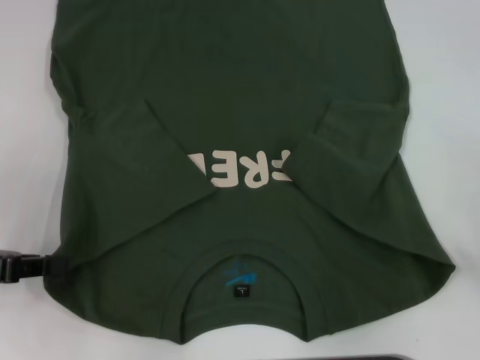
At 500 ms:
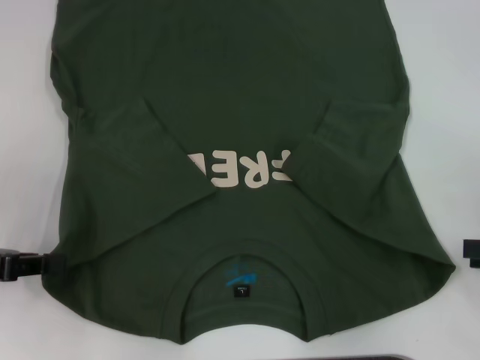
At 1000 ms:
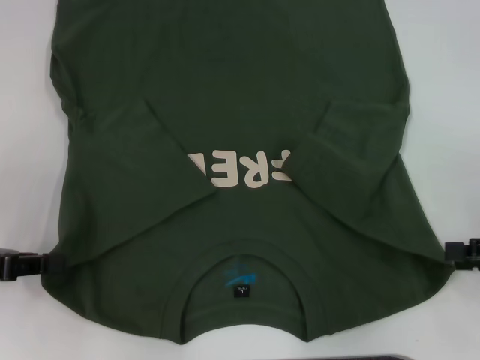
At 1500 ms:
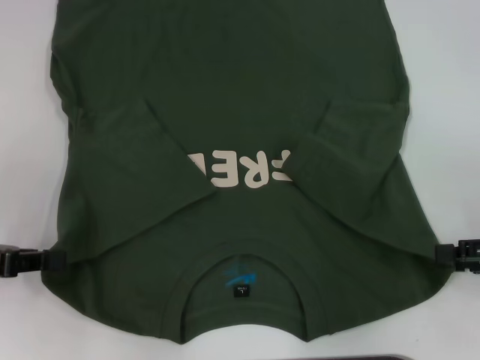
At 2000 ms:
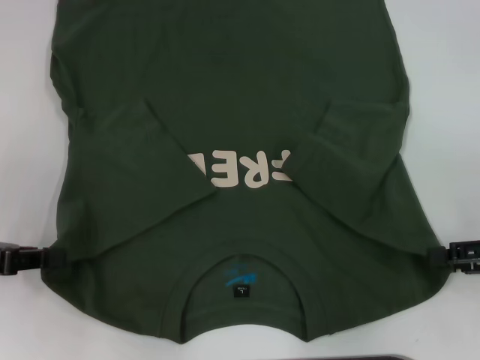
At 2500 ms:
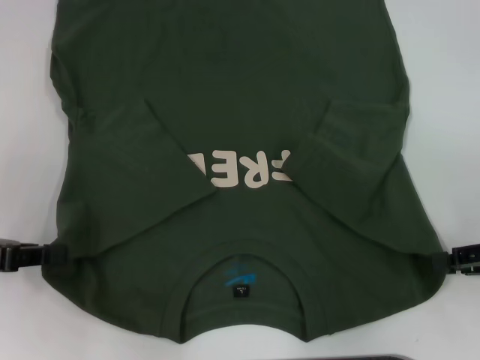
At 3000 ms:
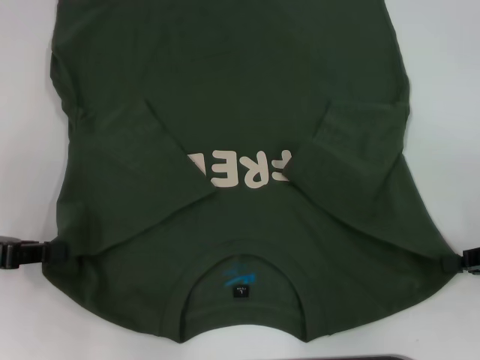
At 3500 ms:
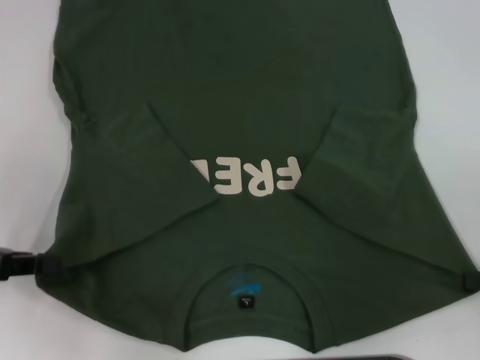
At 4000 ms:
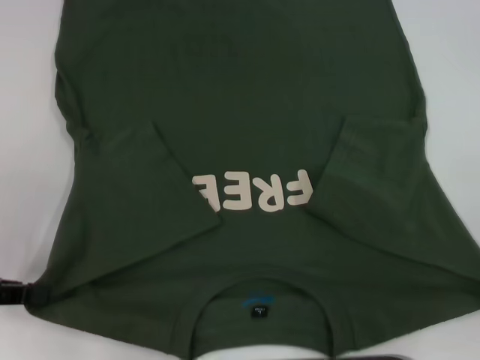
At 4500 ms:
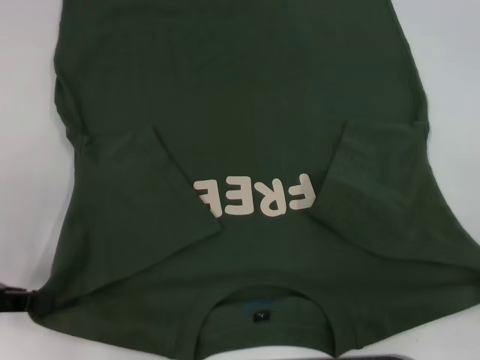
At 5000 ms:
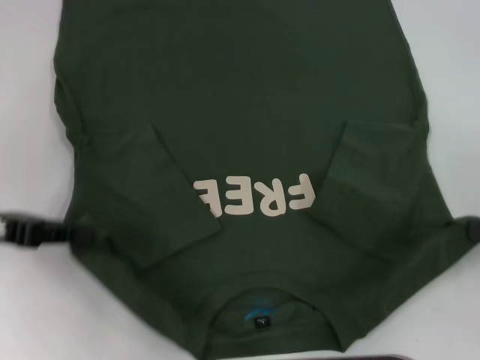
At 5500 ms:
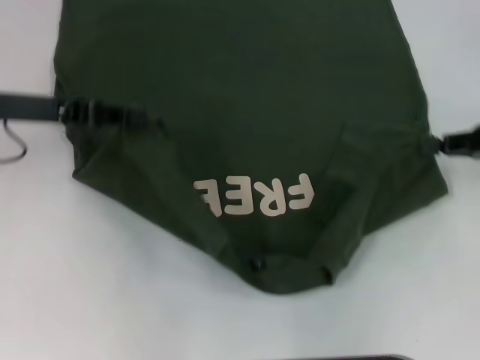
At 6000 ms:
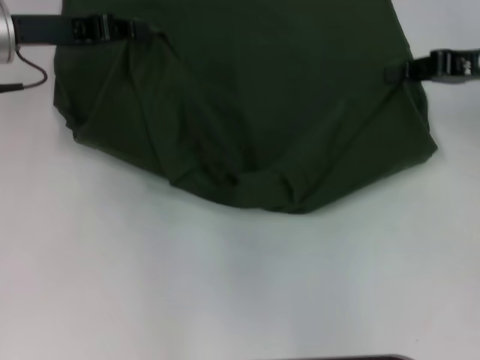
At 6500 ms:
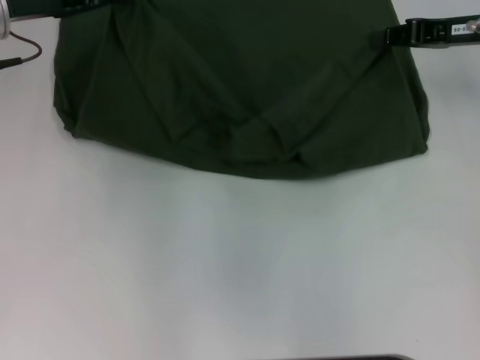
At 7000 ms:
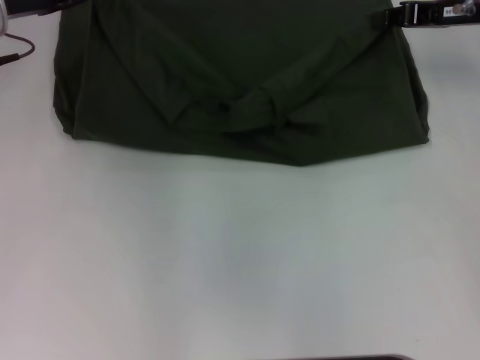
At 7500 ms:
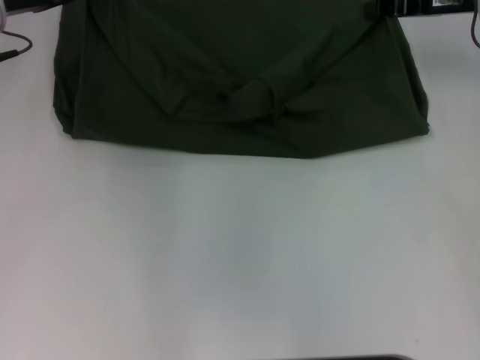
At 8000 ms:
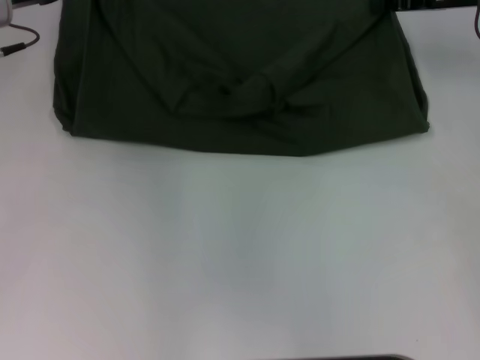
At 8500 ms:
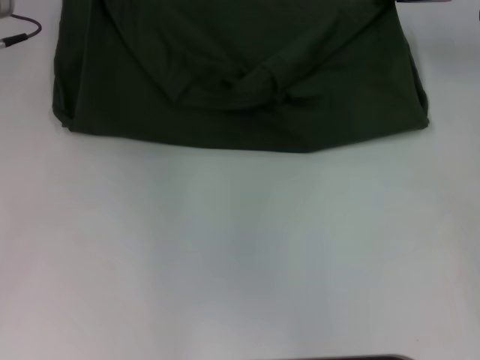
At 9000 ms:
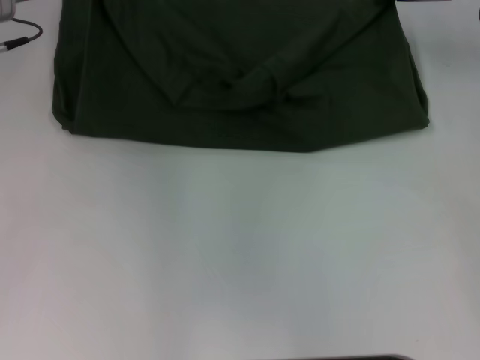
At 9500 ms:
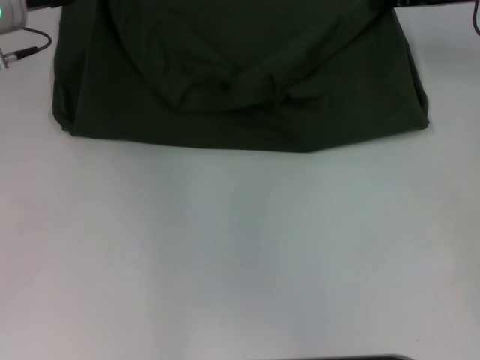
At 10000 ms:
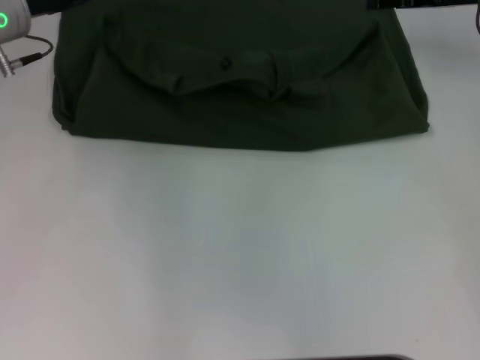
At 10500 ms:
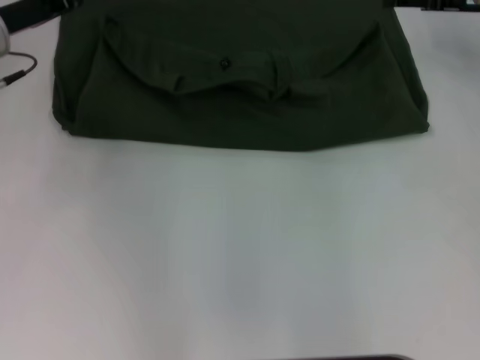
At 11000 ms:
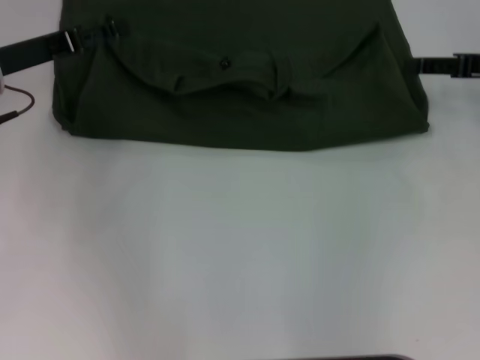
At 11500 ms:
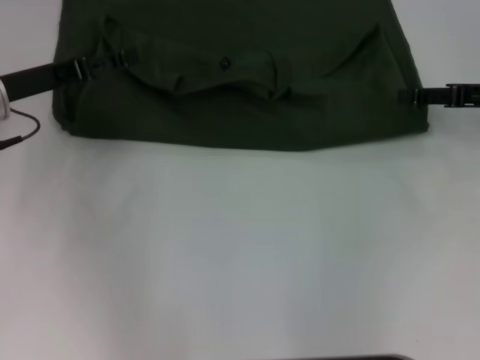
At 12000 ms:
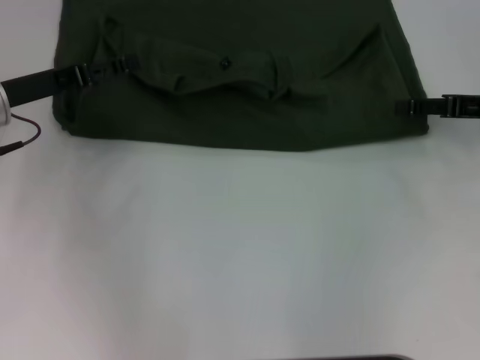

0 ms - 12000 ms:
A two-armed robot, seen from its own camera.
Step, 0 ms - 3000 ms: Grab the bottom right corner with your right hand.
Step, 3500 ms - 11000 ms: Fold the clothes with your left hand.
Step, 3500 ms - 11000 ms: Fold the clothes with your right hand.
0 ms - 2000 ms: The right gripper goes about 5 cm to the left.
2000 ms - 4000 ms: The right gripper moves backward, approximately 5 cm, and closes.
4000 ms - 6000 ms: The left gripper heads forward and to the right, covering approximately 20 cm. The right gripper moves forward and to the left, roughly 25 cm.
6000 ms - 8000 ms: The right gripper is displaced forward by roughly 5 cm.
8000 ms - 10000 ms: The grippers make only small movements.
10000 ms - 12000 ms: The left gripper goes roughly 5 cm backward, and opens its fingers; the right gripper travels backward, downward and to the right by roughly 15 cm, and opens up.

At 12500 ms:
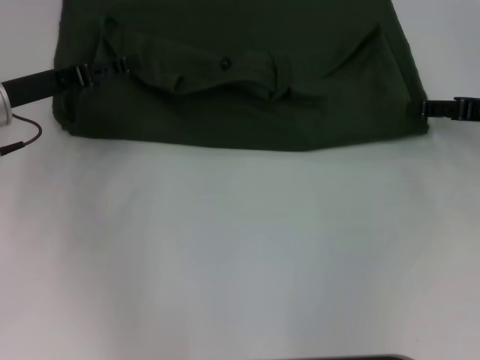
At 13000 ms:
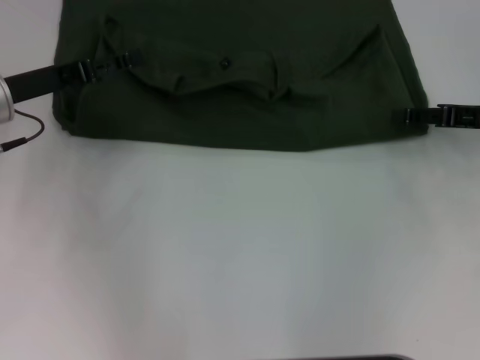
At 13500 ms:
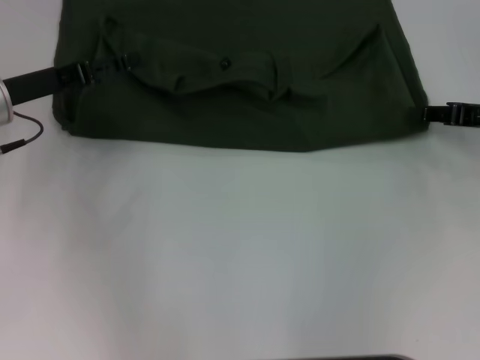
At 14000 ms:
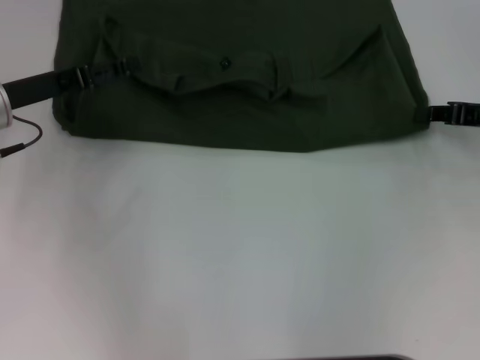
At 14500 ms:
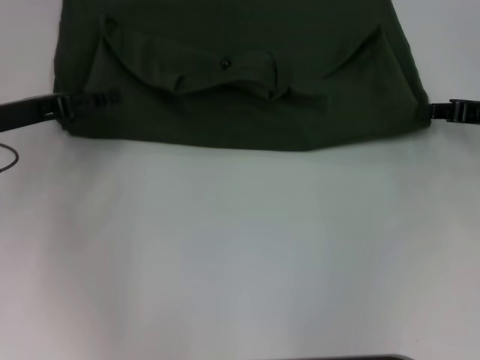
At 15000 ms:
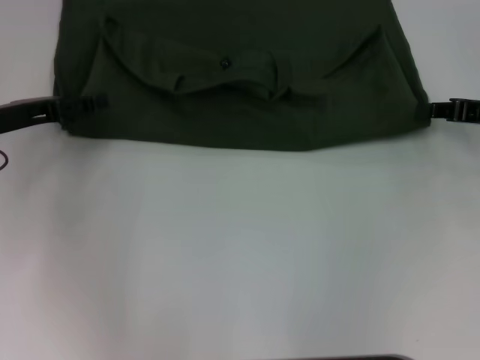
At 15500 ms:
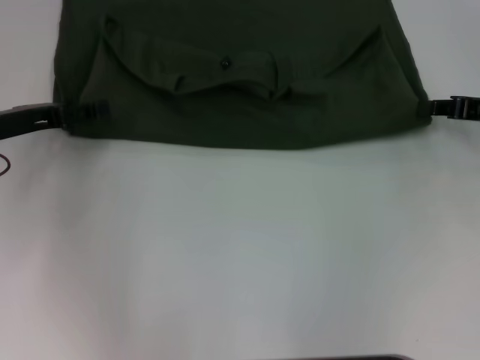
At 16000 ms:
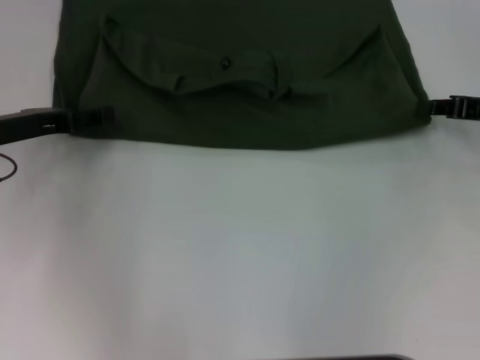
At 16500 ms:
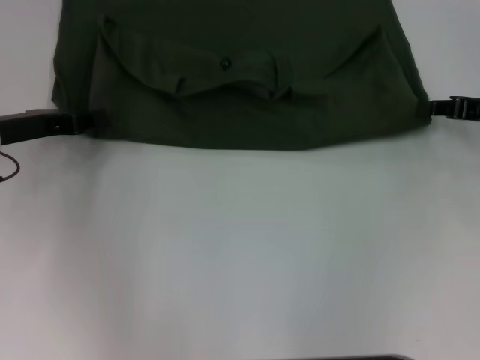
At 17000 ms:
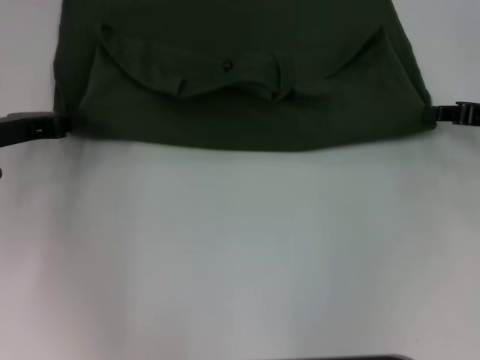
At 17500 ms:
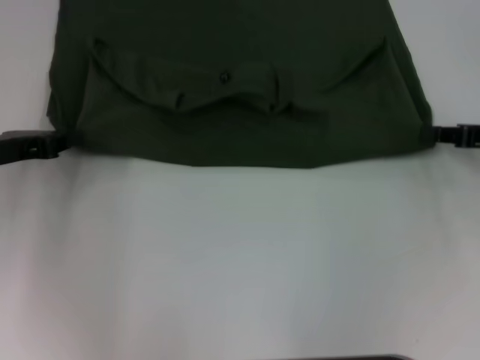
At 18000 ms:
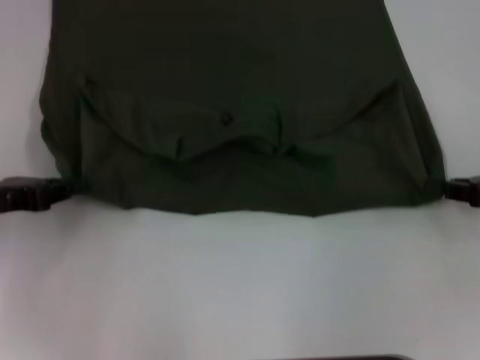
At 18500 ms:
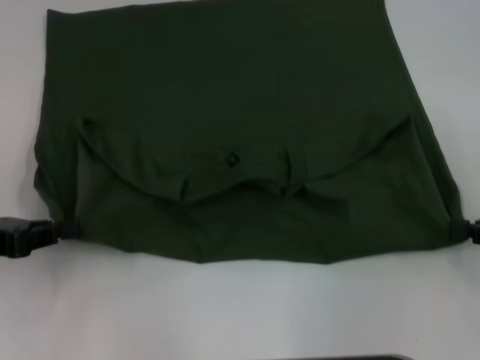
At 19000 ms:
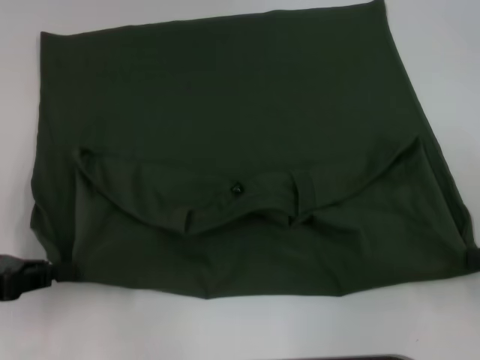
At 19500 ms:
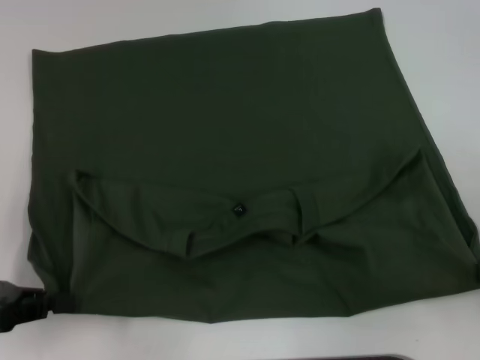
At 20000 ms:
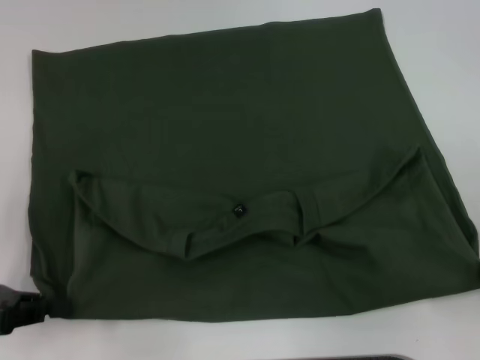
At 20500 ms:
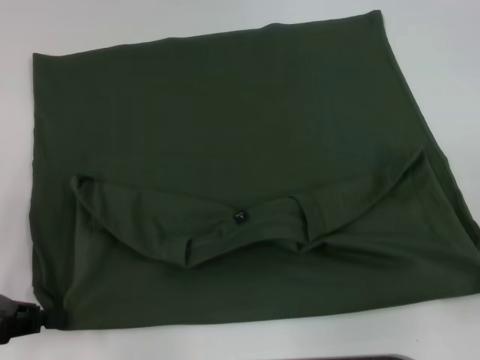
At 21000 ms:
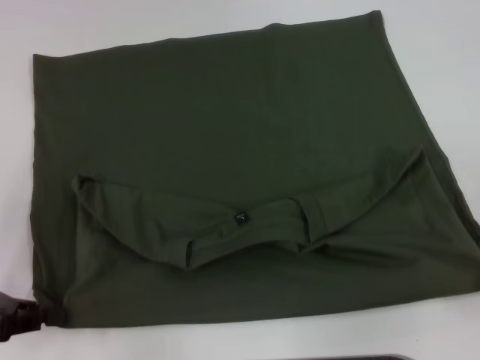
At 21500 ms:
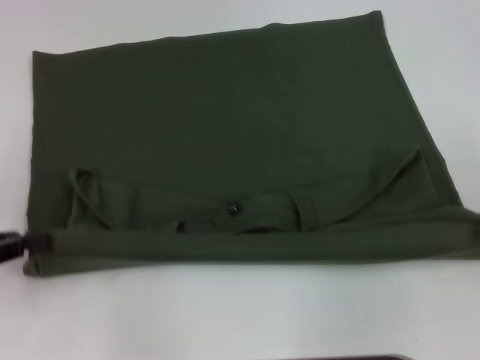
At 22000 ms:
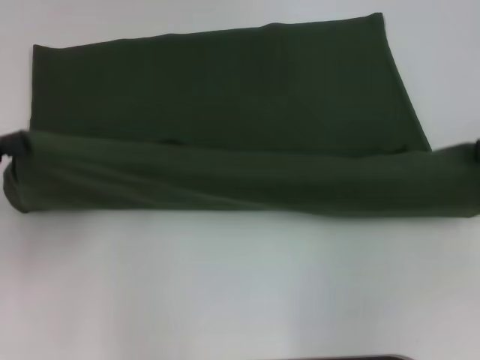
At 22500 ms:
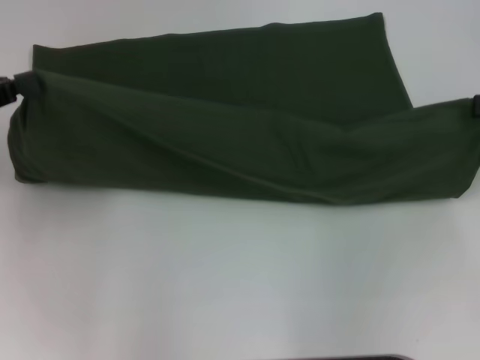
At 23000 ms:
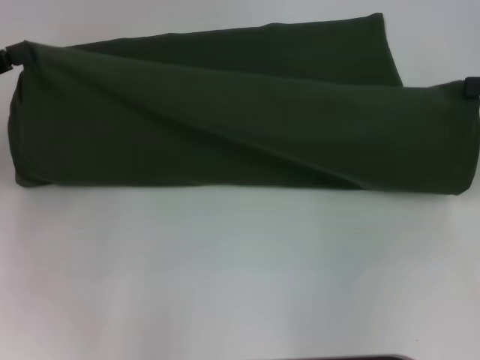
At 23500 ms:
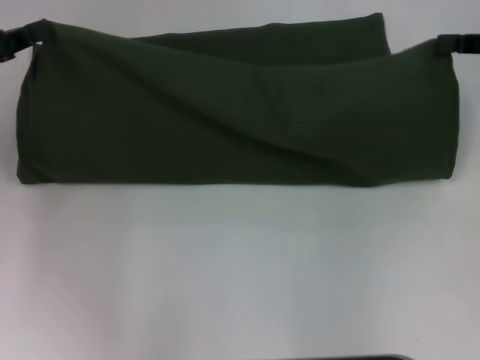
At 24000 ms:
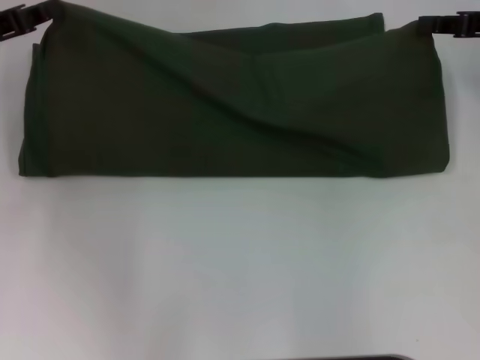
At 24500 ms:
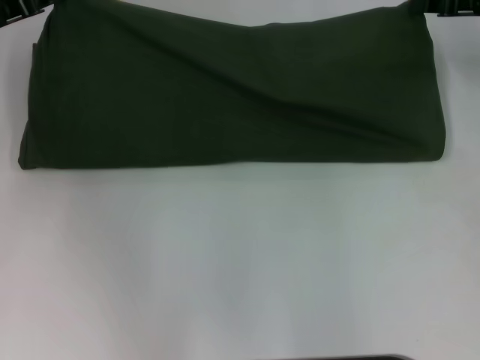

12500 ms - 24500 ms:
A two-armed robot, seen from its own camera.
Step, 12500 ms - 20500 ms: Pull the clothes with your left hand.
Step, 12500 ms - 20500 ms: Pull the clothes with your right hand.
14500 ms - 16500 ms: The left gripper closes.
16500 ms - 18500 ms: The left gripper is displaced backward and to the left by about 10 cm, and closes its fingers. The right gripper shifts some 10 cm backward.
18500 ms - 20500 ms: The right gripper shifts by about 5 cm.
20500 ms - 22500 ms: The grippers both shift forward and upward by some 15 cm.
22500 ms - 24500 ms: The left gripper heads forward, covering approximately 10 cm, while the right gripper is displaced forward and to the left by approximately 15 cm.

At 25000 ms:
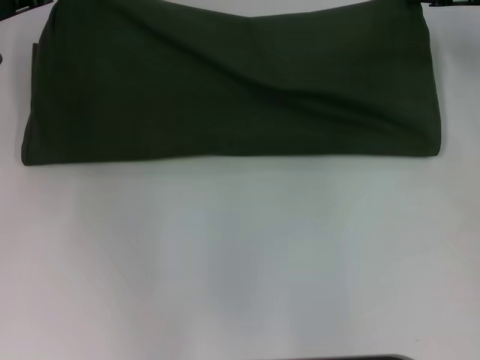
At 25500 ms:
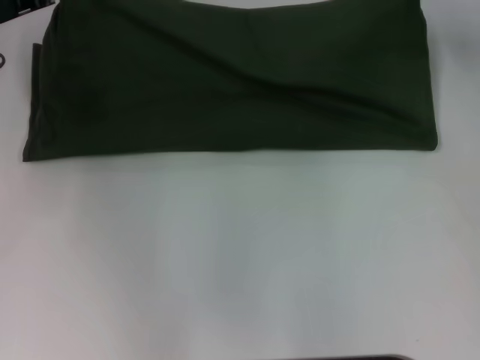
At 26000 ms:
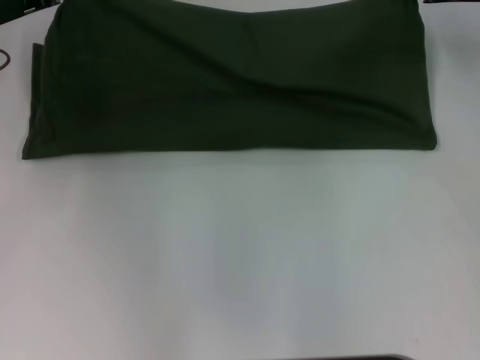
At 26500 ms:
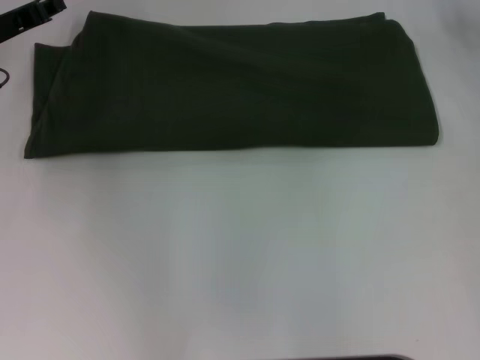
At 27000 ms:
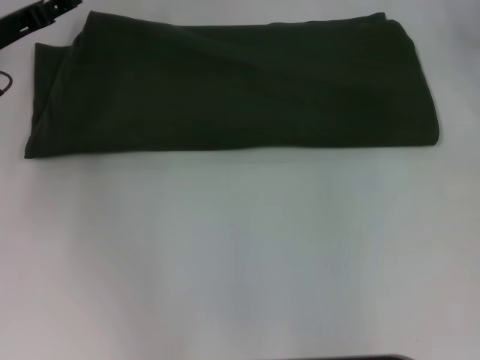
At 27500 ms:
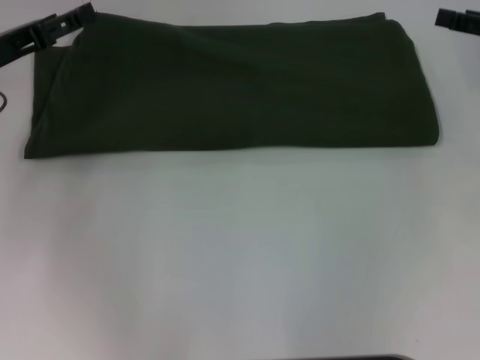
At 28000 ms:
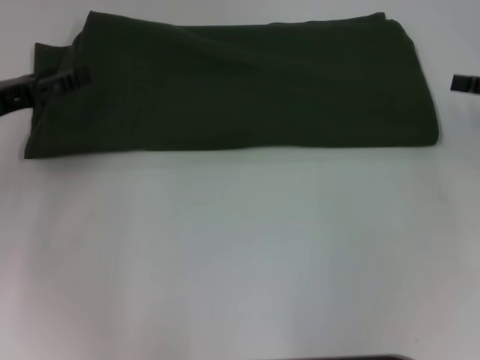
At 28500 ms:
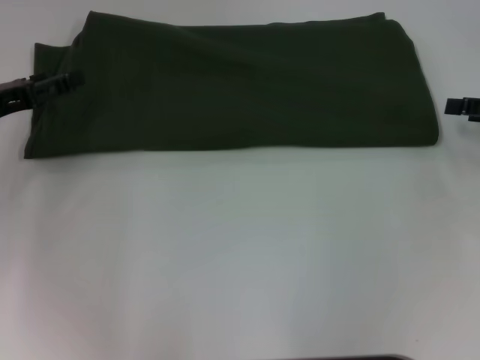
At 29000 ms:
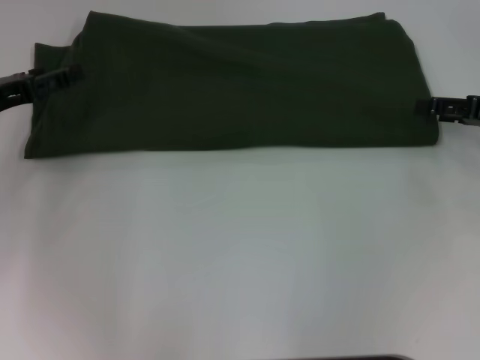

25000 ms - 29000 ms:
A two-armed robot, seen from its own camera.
Step, 25000 ms - 27000 ms: Fold the clothes with your right hand.
25000 ms - 27000 ms: The right gripper opens up, while the left gripper opens its fingers.
27000 ms - 29000 ms: The left gripper heads backward, covering about 5 cm, and opens. Meanwhile the right gripper moves backward and downward, some 10 cm.
